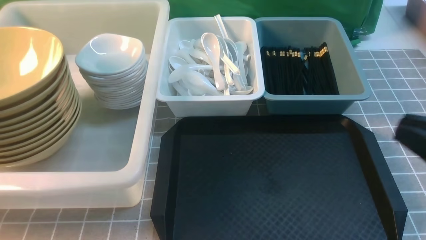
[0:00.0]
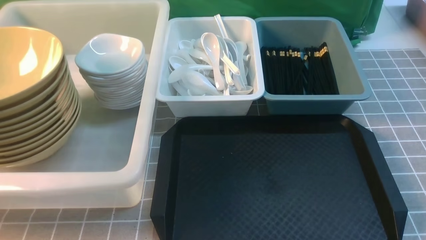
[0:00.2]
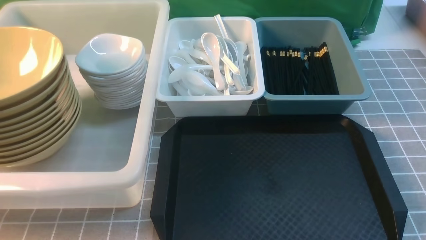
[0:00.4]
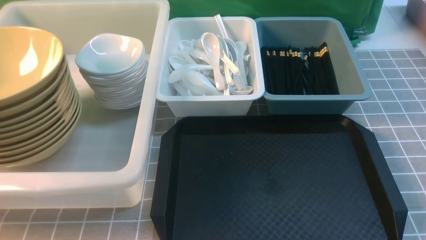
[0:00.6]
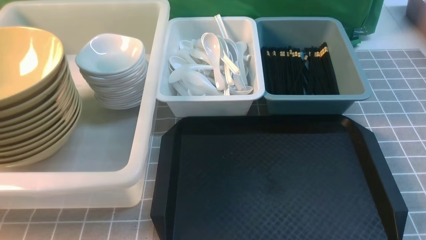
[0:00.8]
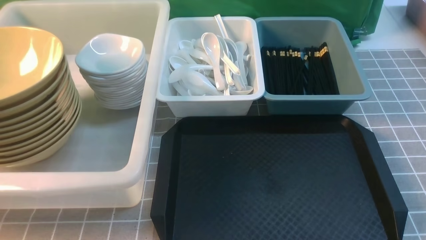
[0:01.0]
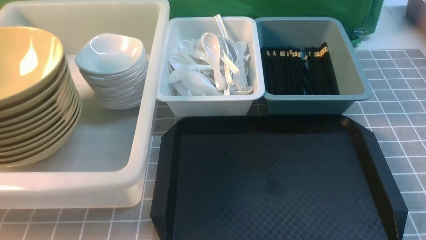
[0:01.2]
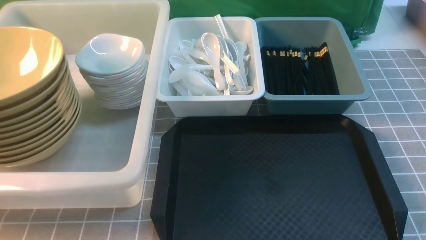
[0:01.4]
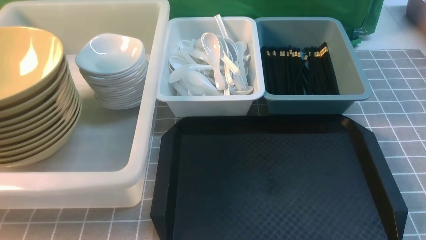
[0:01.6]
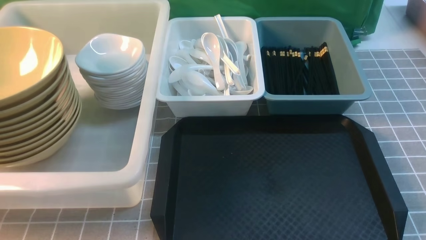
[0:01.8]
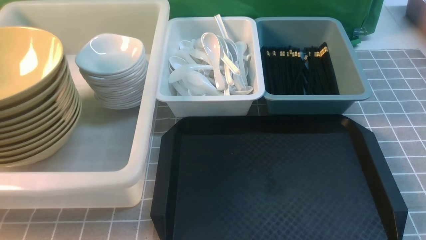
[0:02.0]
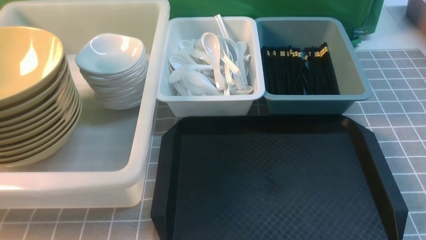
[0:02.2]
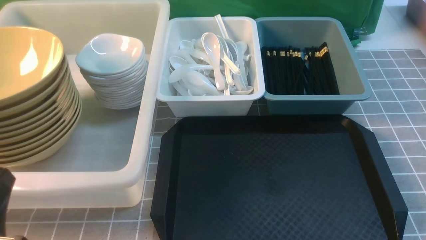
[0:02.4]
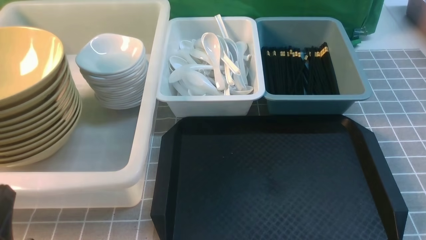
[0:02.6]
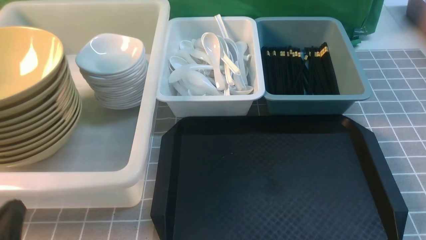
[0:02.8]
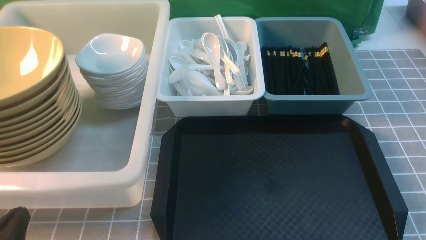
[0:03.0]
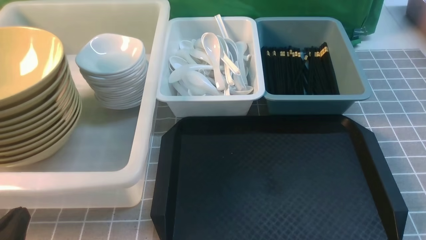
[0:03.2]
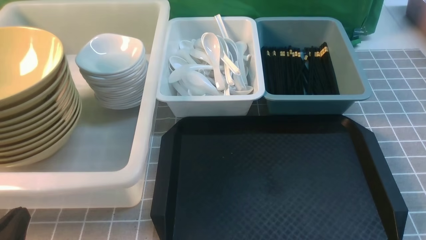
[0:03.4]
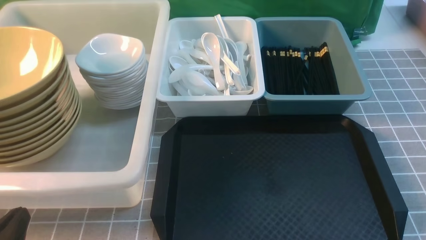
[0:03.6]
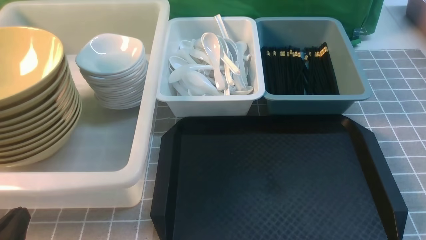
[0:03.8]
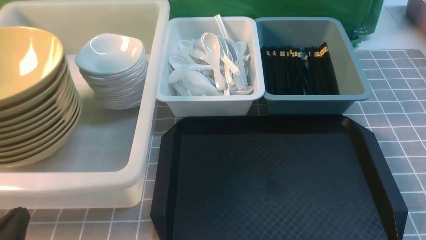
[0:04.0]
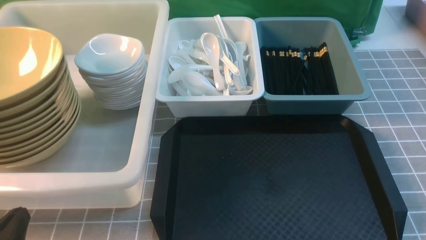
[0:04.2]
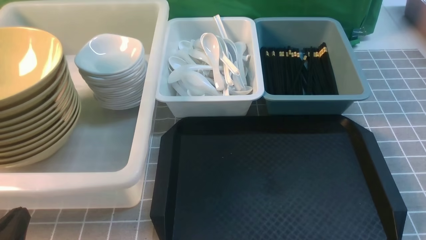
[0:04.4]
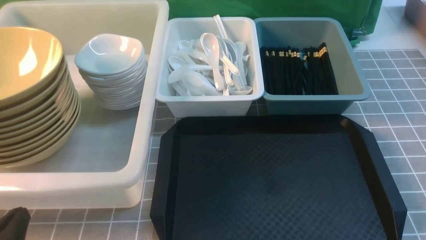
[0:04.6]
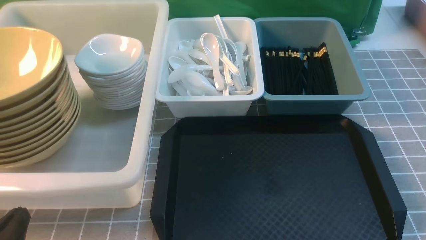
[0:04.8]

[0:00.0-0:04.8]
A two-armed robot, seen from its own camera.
Task of the whole recording: on grey table put chopsticks spoon bowls plates into blue grey white boxes.
0:00.0 to 0:01.6: The right gripper moves downward and to the right, about 20 cm.
0:01.6 to 0:03.2: The left gripper shifts roughly 15 cm downward.
0:03.2 to 0:04.8: Both grippers stay about where they are.

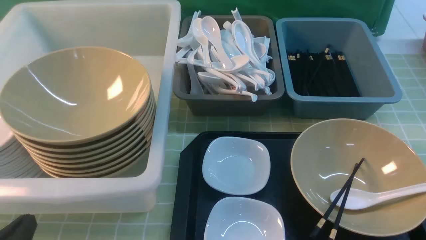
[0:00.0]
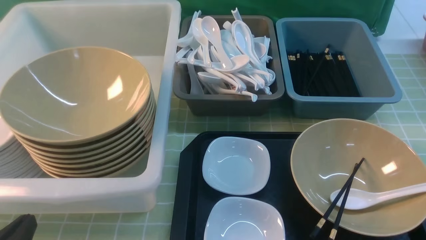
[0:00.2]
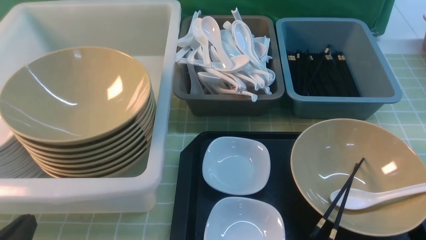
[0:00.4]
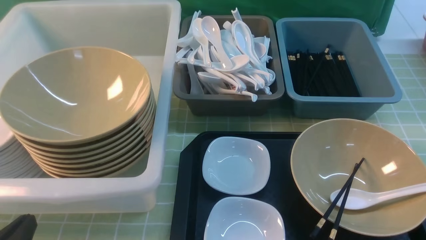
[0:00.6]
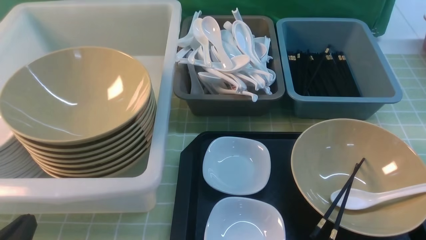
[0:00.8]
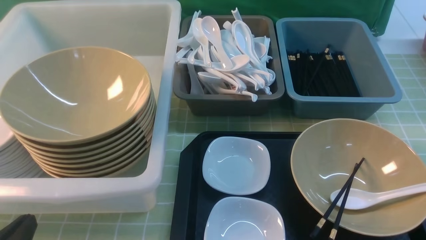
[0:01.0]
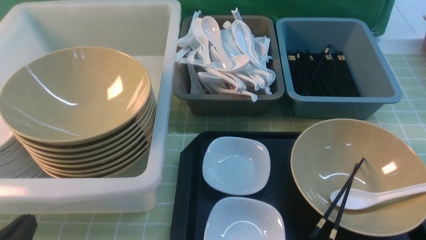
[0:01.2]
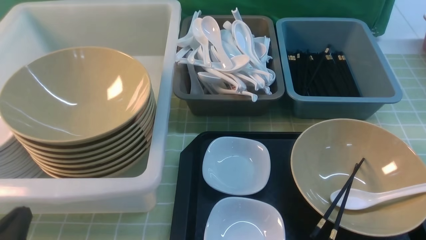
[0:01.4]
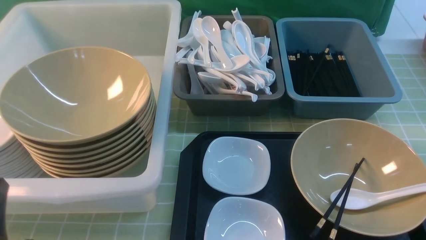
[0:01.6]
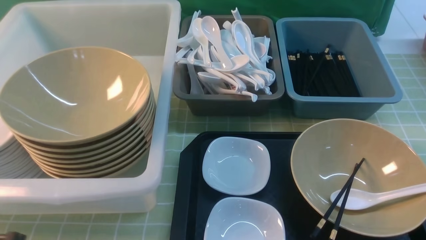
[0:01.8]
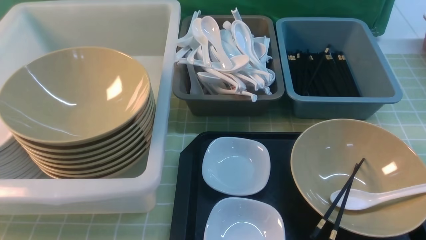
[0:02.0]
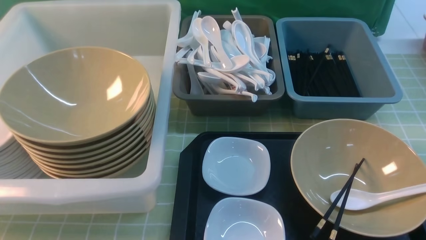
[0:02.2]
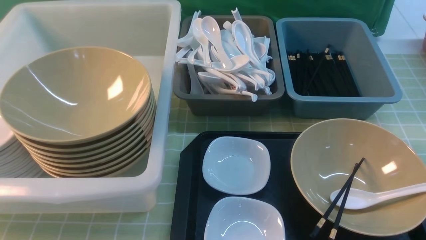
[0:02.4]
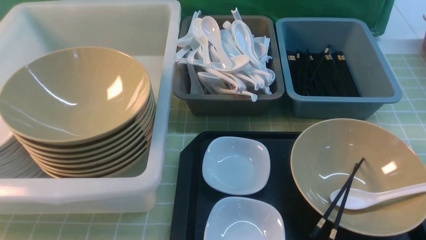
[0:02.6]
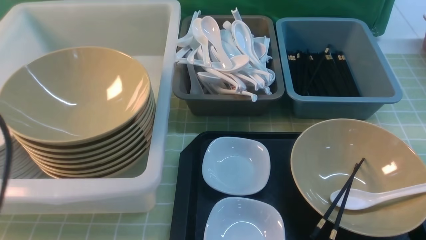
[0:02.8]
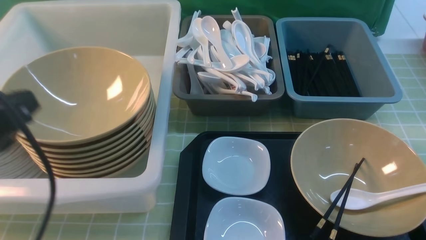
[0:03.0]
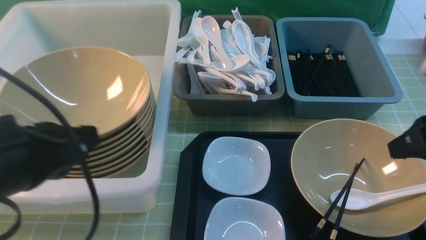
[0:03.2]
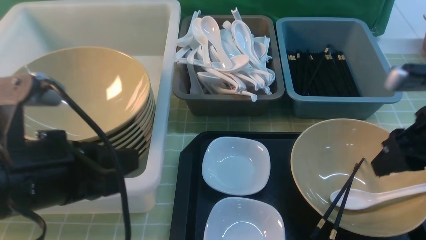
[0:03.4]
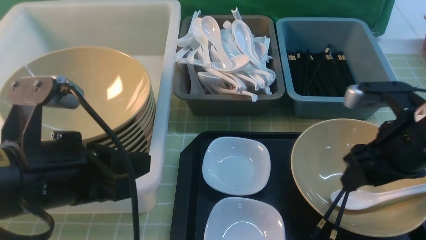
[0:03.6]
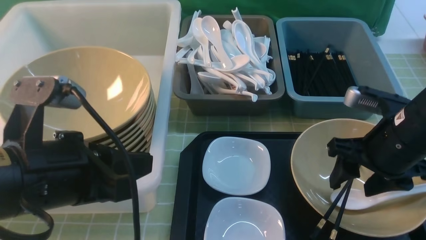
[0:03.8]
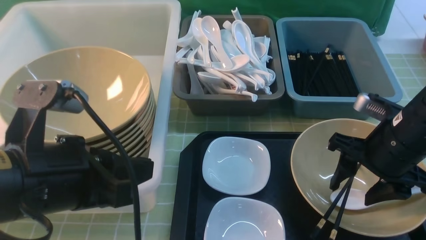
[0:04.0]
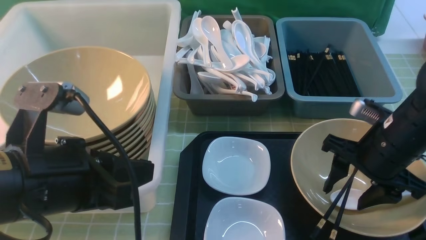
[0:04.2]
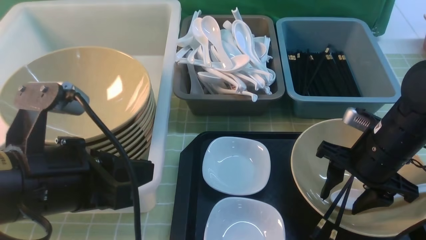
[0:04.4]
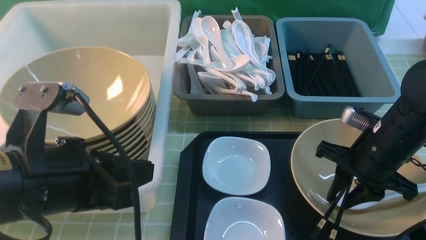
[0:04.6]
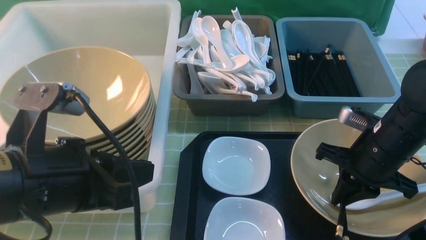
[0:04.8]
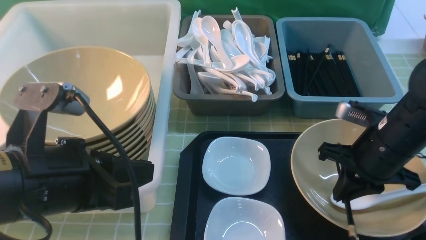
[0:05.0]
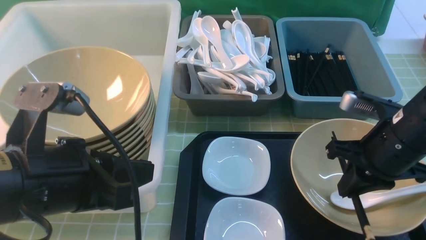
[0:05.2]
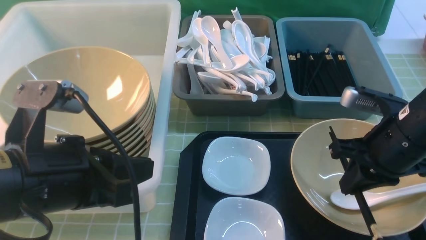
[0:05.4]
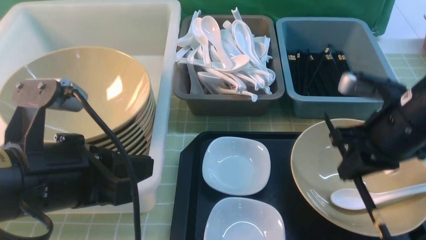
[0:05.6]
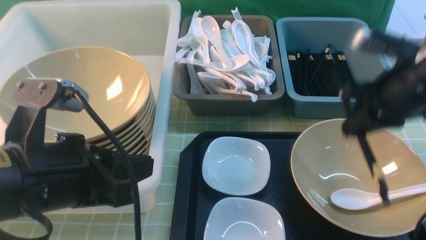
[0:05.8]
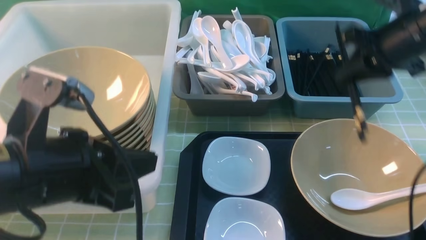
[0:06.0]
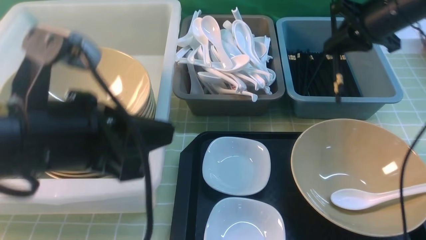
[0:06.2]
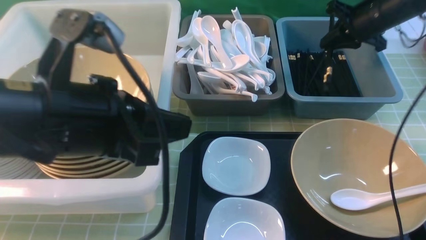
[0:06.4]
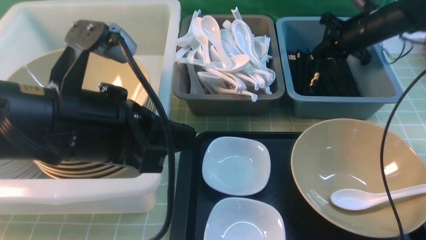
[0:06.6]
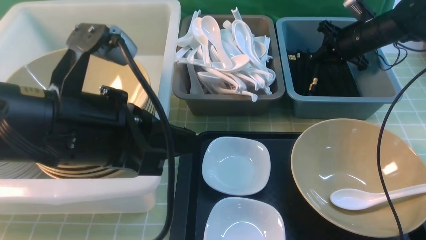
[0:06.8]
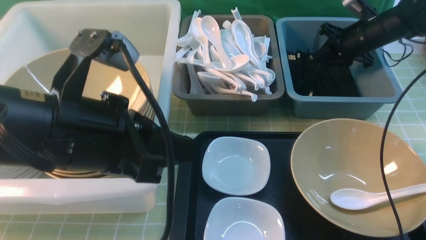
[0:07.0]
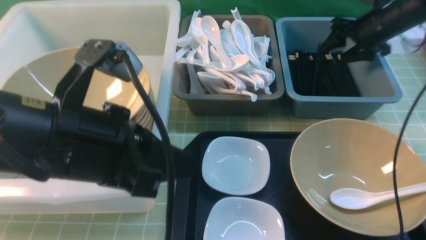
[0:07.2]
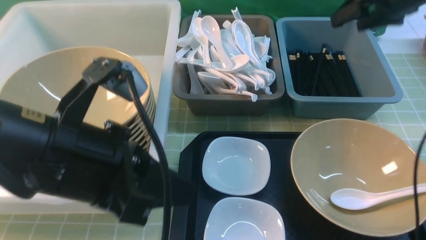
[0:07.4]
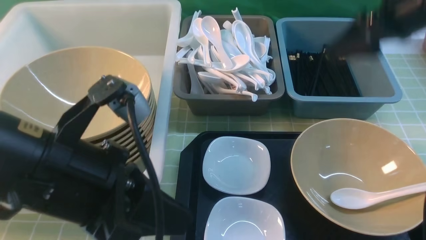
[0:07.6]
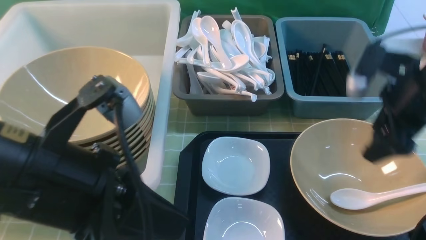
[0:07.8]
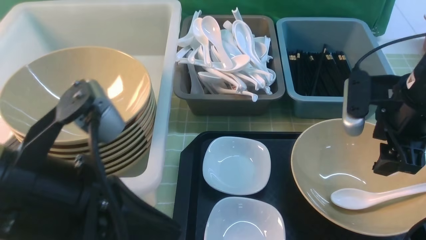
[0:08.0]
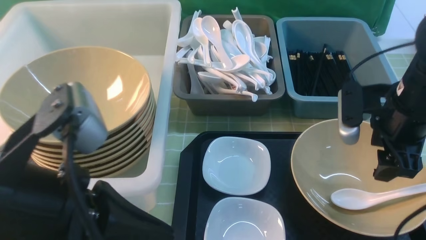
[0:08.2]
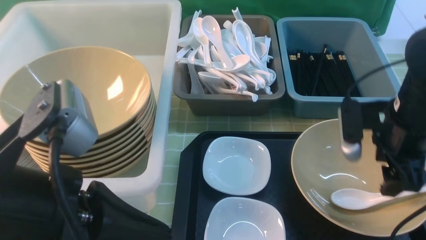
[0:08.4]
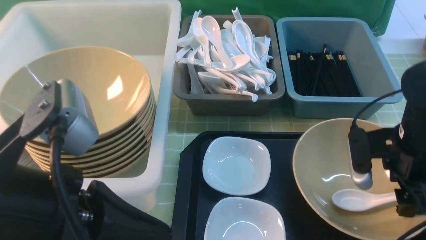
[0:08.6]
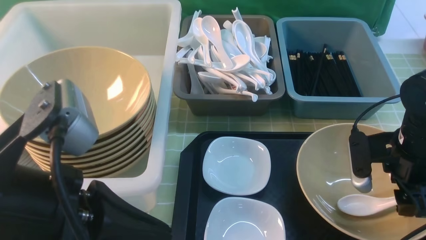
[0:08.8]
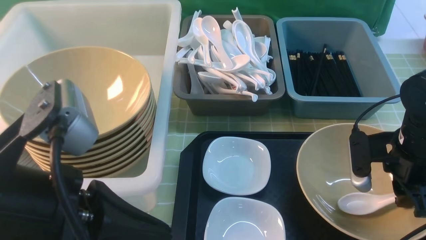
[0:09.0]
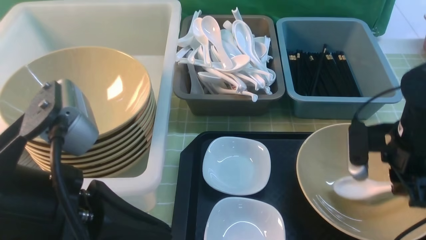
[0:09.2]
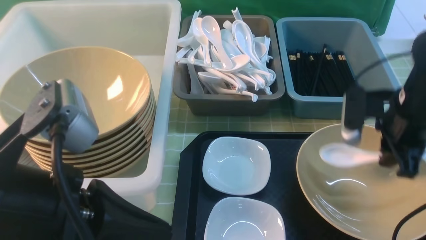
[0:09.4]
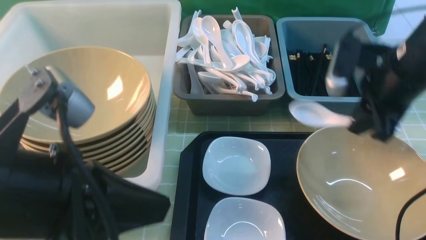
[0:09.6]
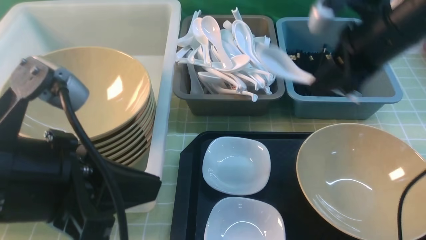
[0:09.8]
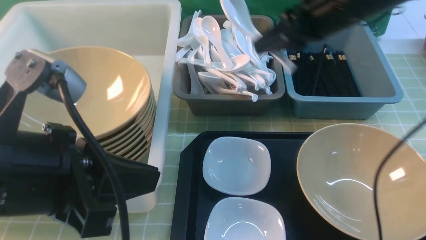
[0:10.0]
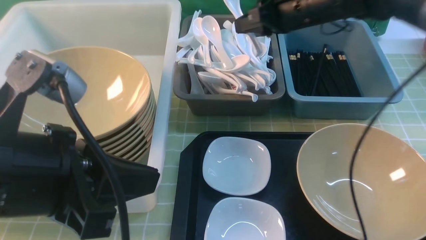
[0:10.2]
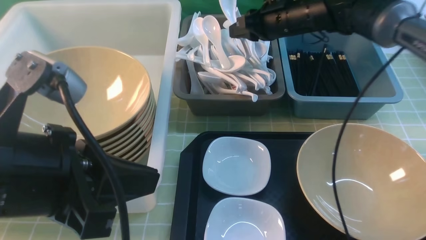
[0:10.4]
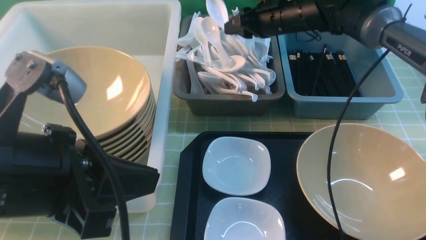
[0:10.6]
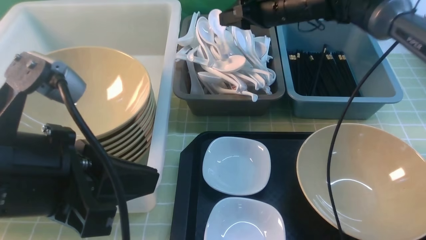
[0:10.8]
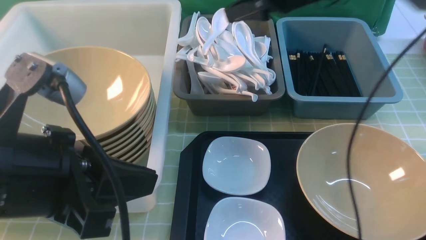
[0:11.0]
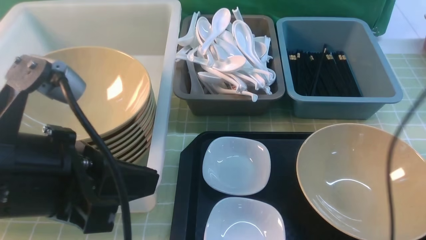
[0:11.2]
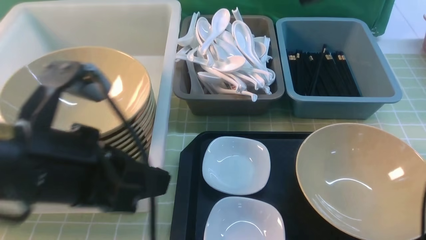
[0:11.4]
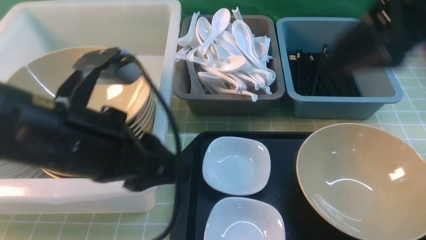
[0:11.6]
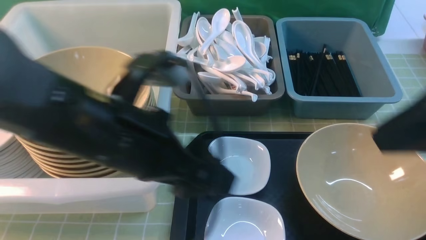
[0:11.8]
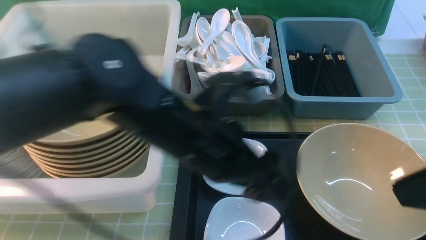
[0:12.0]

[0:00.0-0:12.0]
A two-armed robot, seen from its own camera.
Task of the whole recording: on green table put chopsticks spoon bowls plates into blue grey white boxes.
Step, 0:00.0 to 0:05.2: use the right arm to grab the chopsticks.
Step, 0:05.4 to 0:07.2: use the right arm to put the chopsticks into the small storage box on the right.
Step, 0:07.4 to 0:09.2: use the right arm to grab the soup spoon in the middle.
Step, 0:09.4 to 0:10.6: use the right arm to put the soup spoon into the small storage box in the middle.
0:01.6 to 0:03.0: The left gripper heads upward and forward, covering some 15 cm.
0:03.0 to 0:04.4: The right gripper travels downward, to the left and forward by approximately 15 cm. The left gripper travels to the right by roughly 5 cm.
0:04.4 to 0:06.0: The right gripper shifts some 15 cm upward and forward, and closes.
0:06.0 to 0:07.6: The right gripper travels forward and back again, some 15 cm each way, and opens its fingers.
0:07.6 to 0:09.0: The right gripper moves downward and backward, roughly 15 cm, and closes up.
0:09.0 to 0:10.4: The right gripper moves forward and to the left, some 25 cm.
0:10.4 to 0:12.0: The right gripper moves backward, approximately 35 cm, and opens and closes again. The left gripper travels to the right, forward and downward by roughly 20 cm, and opens its fingers.
